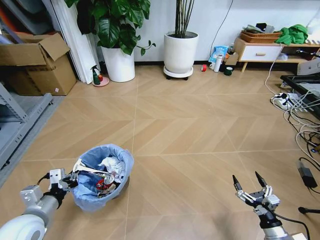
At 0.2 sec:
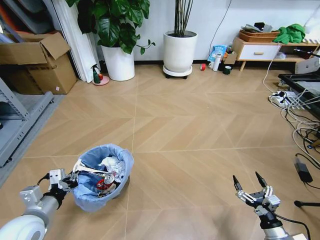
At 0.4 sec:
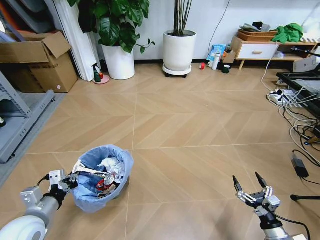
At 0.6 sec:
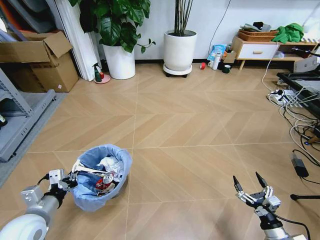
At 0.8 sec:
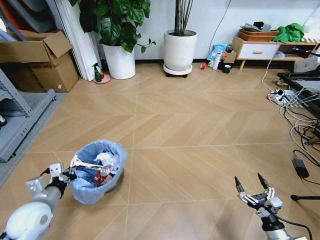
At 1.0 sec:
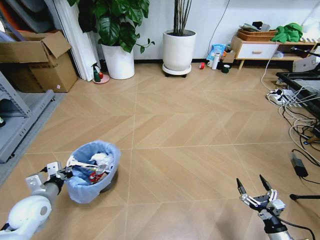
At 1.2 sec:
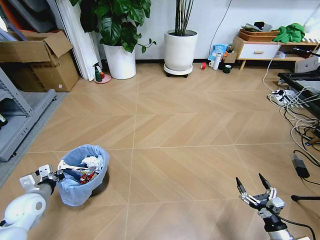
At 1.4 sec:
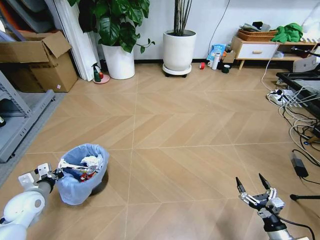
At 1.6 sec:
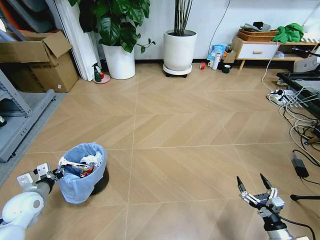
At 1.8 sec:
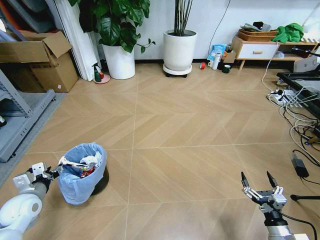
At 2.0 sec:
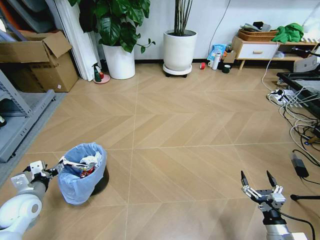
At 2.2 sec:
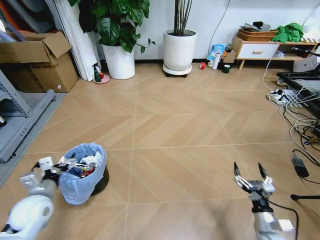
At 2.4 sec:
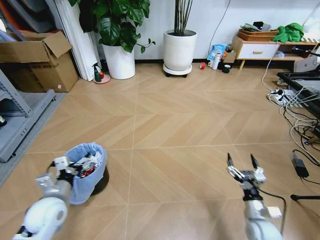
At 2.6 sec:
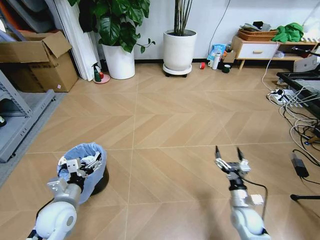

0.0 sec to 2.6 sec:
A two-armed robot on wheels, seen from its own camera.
Task of the whole recording: Pick up the trash bin and place the garbage on the floor into it.
0.0 sec to 1.2 sec: The left gripper is displaced forward, to the left and downward by approximately 10 cm.
1.2 sec to 2.6 sec: The left gripper travels to the right by some 10 cm, and opens its fingers. The right gripper is displaced forward and to the left by about 15 cm.
